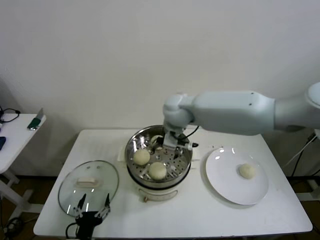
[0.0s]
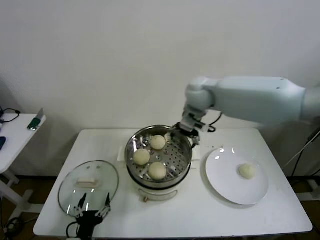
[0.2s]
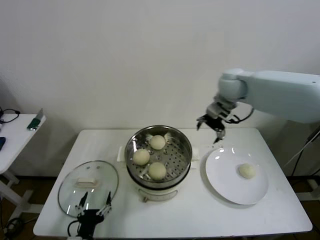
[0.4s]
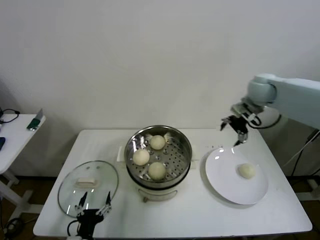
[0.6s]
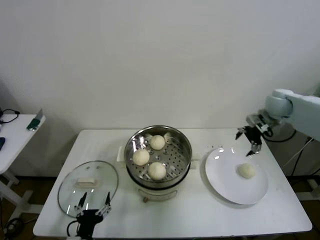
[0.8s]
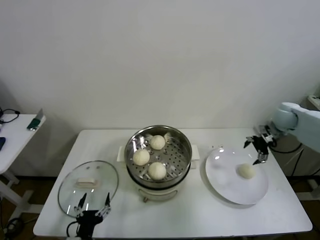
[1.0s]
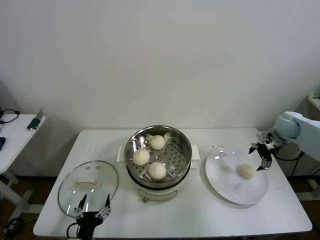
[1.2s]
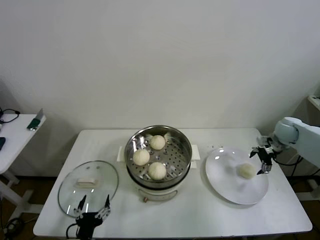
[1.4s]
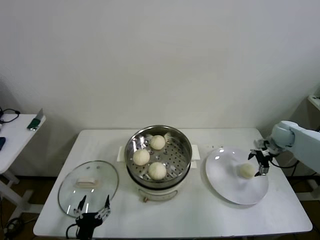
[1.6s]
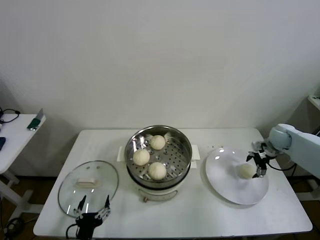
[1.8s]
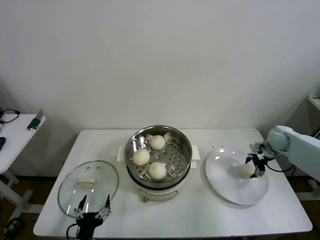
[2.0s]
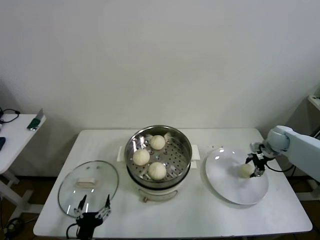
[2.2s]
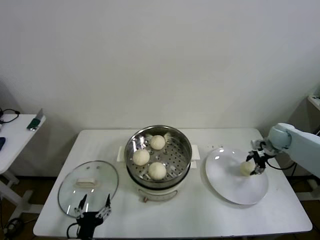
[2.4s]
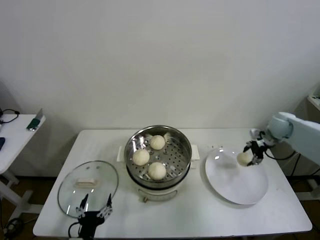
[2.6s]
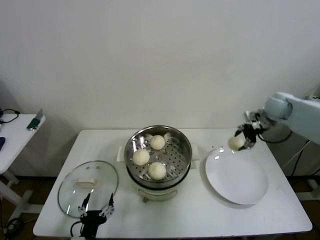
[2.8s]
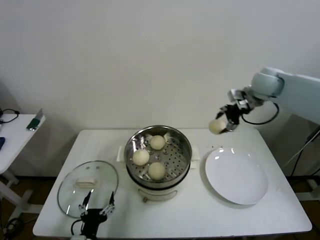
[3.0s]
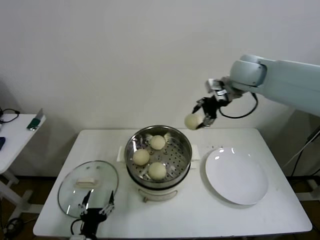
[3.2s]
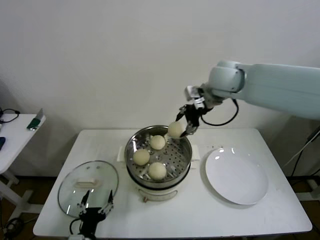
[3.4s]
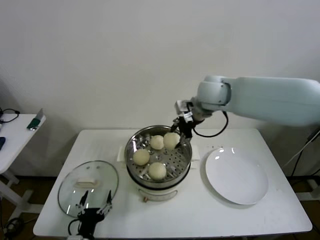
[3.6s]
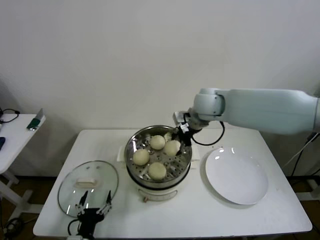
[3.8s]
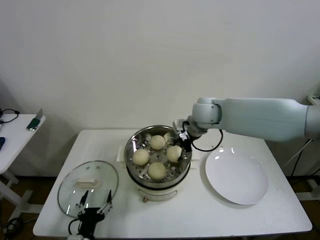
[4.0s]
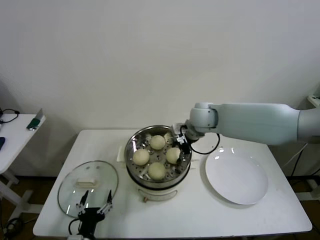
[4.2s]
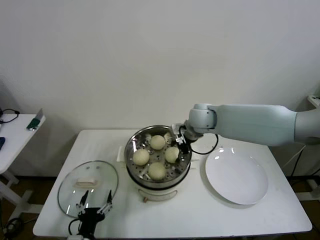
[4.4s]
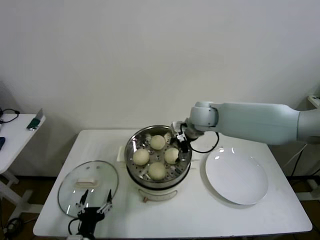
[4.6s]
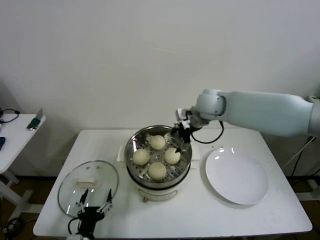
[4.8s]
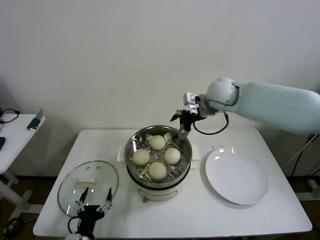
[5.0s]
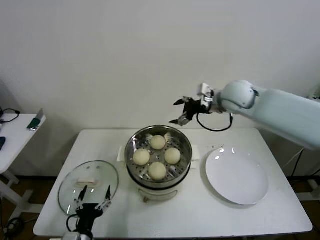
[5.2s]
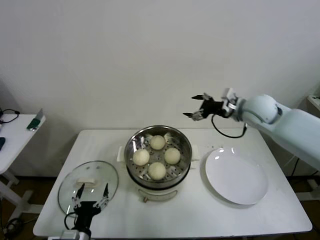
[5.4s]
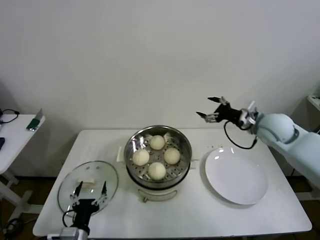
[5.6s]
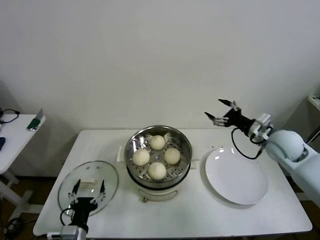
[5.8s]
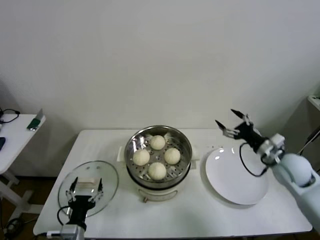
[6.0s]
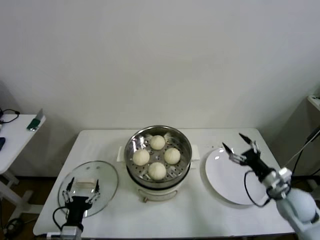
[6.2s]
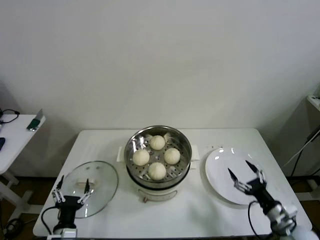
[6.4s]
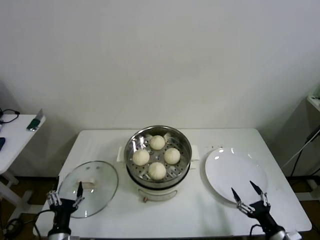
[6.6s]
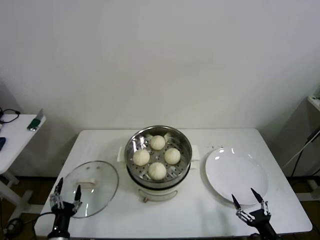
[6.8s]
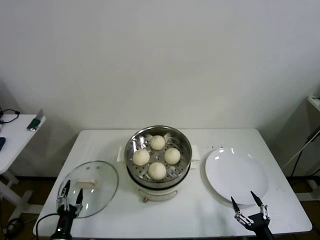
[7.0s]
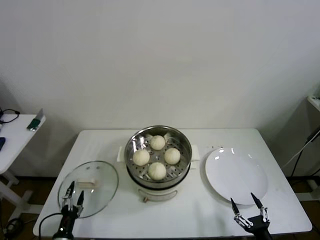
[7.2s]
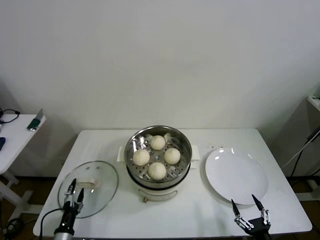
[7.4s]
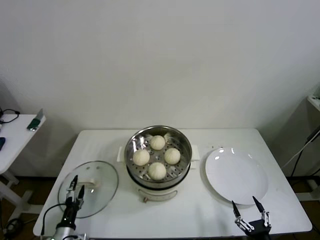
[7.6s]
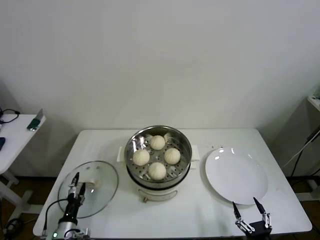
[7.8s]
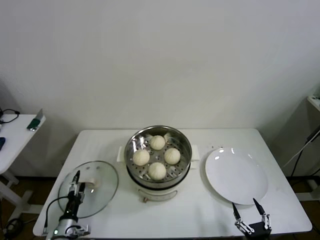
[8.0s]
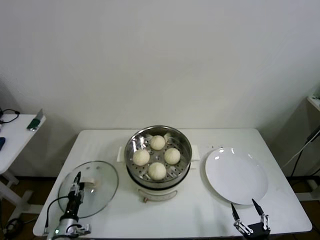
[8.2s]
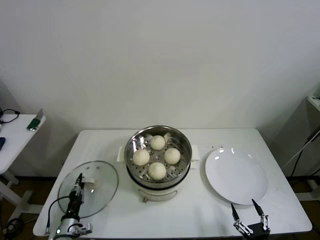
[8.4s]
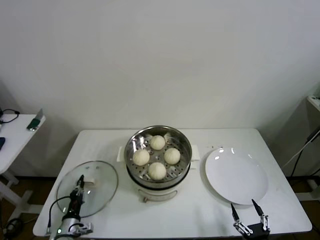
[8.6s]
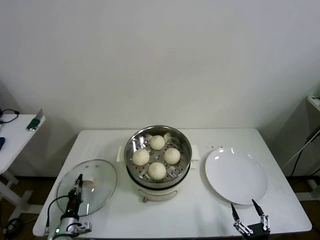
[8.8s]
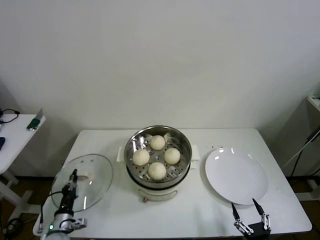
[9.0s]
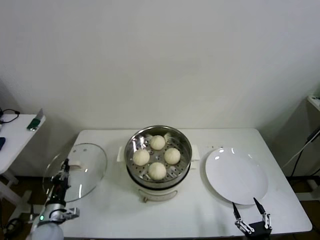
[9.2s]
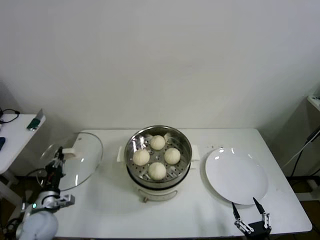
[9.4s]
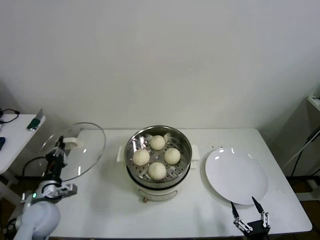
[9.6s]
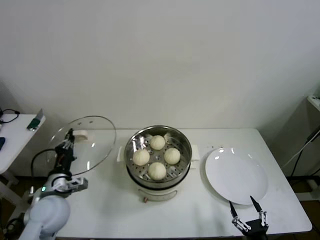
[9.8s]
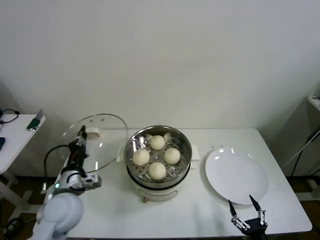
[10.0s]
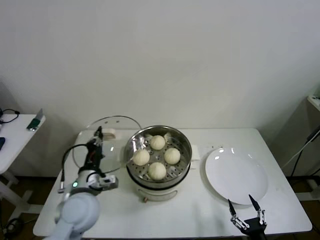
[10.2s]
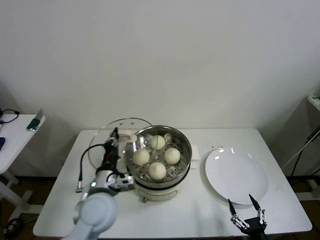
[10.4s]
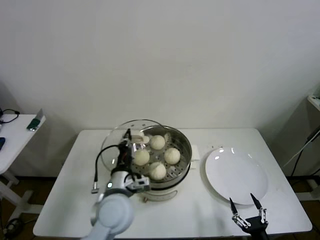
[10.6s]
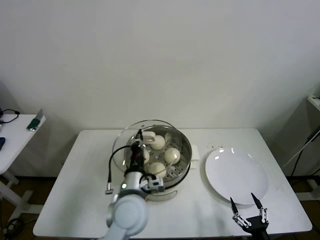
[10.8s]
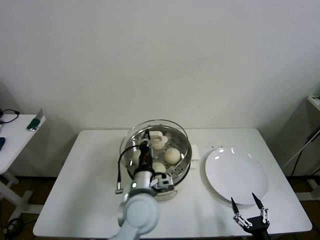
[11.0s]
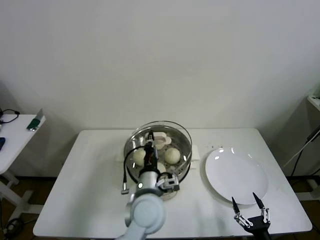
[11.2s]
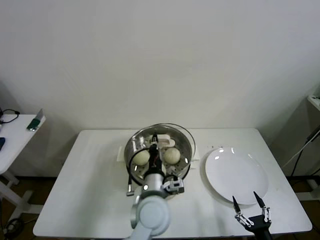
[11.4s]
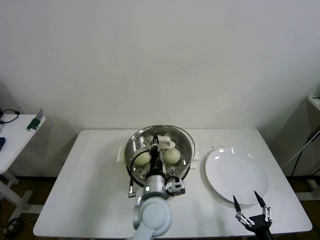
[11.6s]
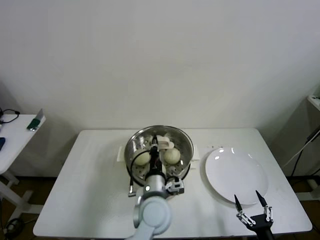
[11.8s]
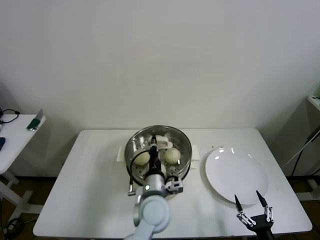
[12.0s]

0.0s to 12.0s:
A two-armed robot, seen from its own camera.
Step, 0.0s to 2.2s: Grasp the baozi in the plate with right gripper.
Step, 2.4s to 4.6s: Place the baozi on the steamer with right gripper.
Step, 4.8s to 8.6s: Grasp the pot lid with left gripper.
0.0s to 1.6s: The right gripper goes roughly 40 cm to the right.
1.6s to 3.0s: The right gripper moves upward and to the left, about 25 cm, and closes its fingers.
3.0s to 4.4s: The right gripper shifts about 20 cm to the left and downward.
4.4s to 6.0s: The right gripper shifts some 30 cm to the right and backward, and opens its fingers.
6.0s to 7.6s: The right gripper is displaced backward and downward by roughly 35 cm; the left gripper is displaced downward and to the left by roughly 15 cm.
7.6s to 9.0s: The left gripper closes up.
9.0s to 10.4s: The left gripper heads upward and to the right, covering roughly 30 cm.
10.4s to 12.0s: The left gripper shifts roughly 15 cm to the right.

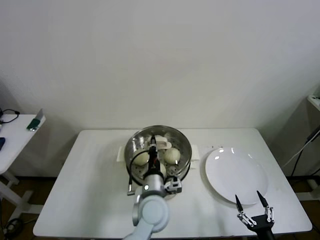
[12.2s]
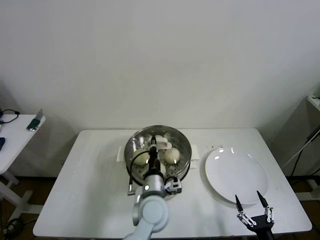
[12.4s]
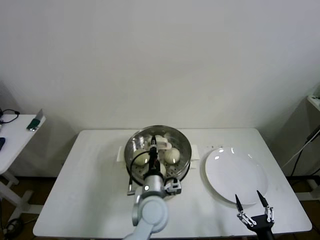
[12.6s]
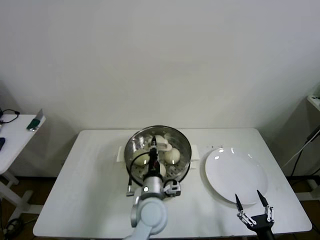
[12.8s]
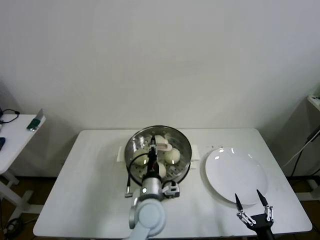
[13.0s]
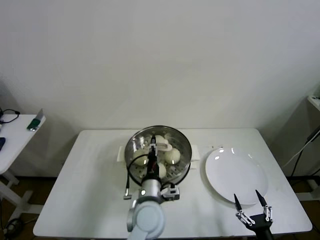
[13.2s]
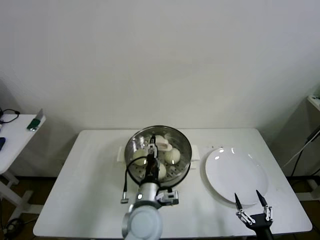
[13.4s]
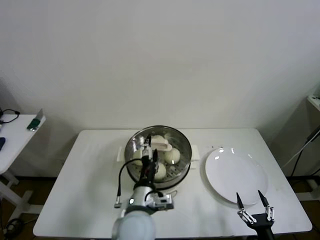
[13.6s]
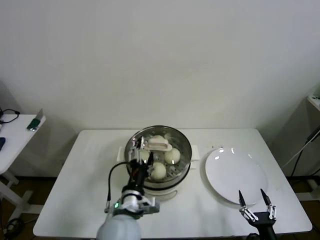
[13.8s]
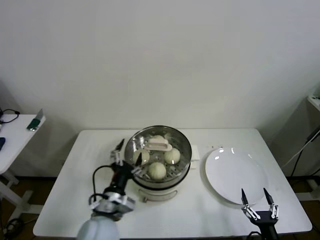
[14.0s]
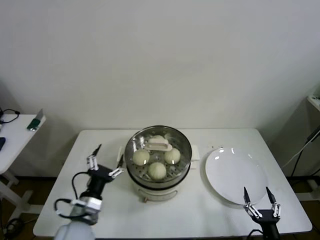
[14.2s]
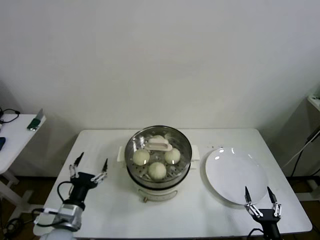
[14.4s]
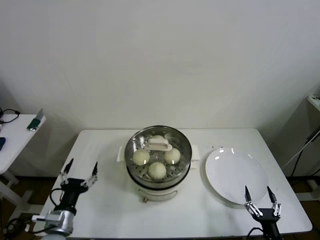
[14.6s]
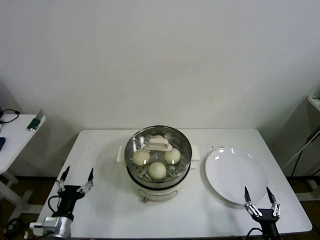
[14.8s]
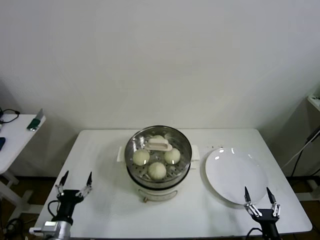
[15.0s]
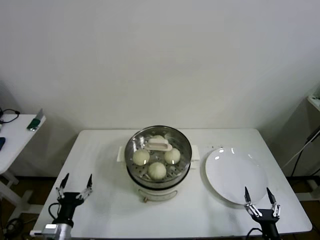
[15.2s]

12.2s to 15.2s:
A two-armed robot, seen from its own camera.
12.2s to 13.8s: The left gripper travels to the left and backward by roughly 10 cm, and opens.
13.8s to 15.2s: The left gripper travels to the left and downward by some 30 cm.
